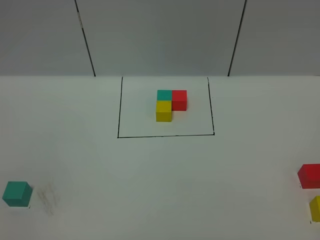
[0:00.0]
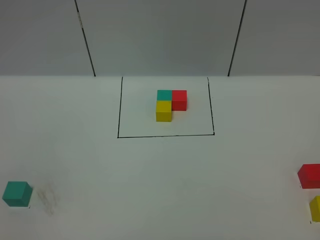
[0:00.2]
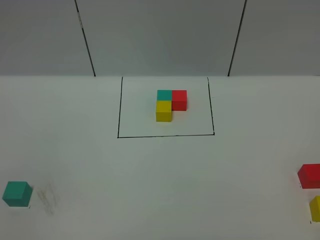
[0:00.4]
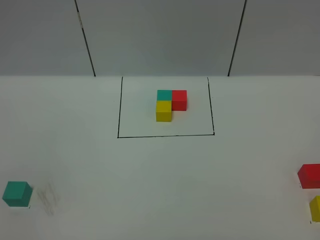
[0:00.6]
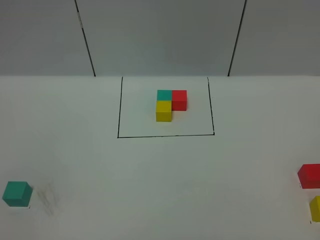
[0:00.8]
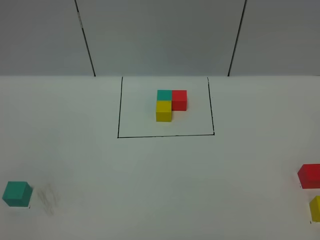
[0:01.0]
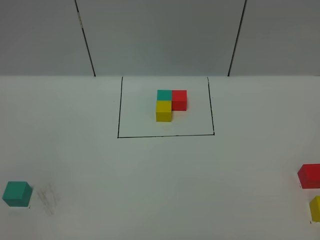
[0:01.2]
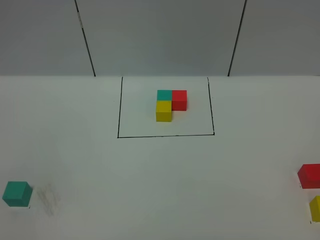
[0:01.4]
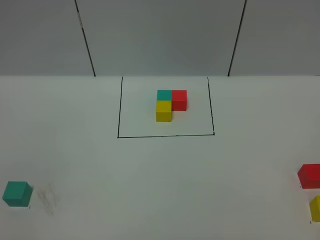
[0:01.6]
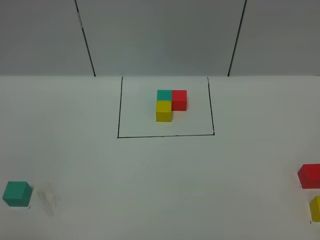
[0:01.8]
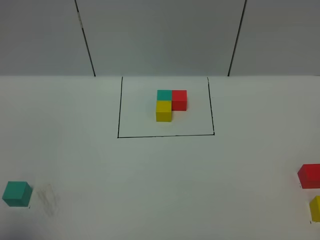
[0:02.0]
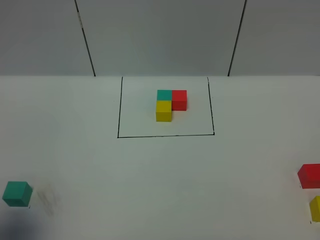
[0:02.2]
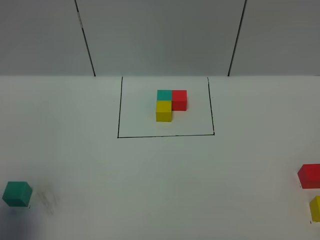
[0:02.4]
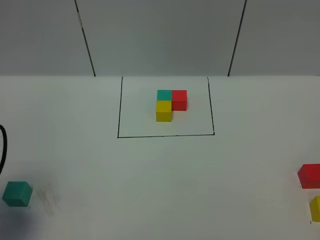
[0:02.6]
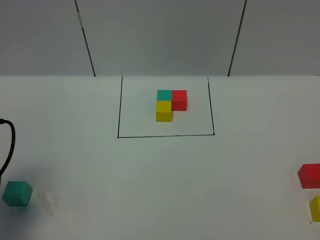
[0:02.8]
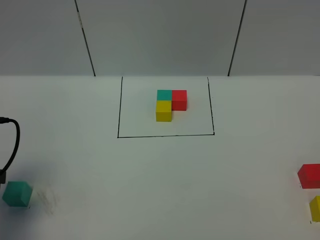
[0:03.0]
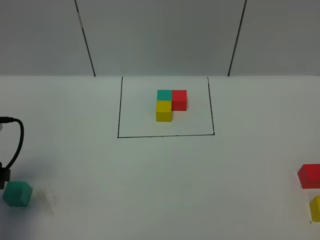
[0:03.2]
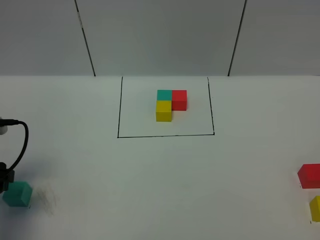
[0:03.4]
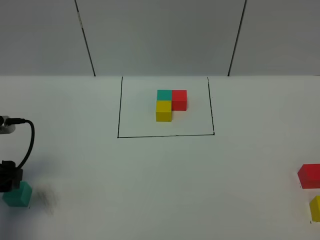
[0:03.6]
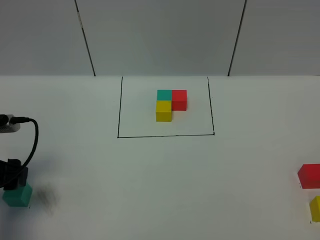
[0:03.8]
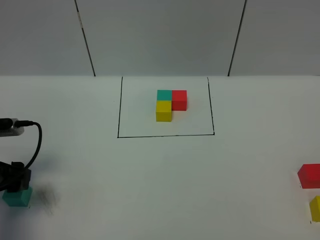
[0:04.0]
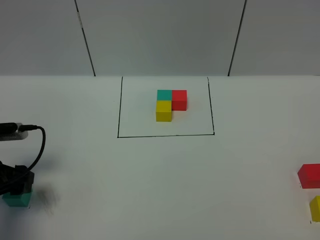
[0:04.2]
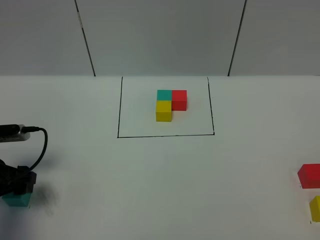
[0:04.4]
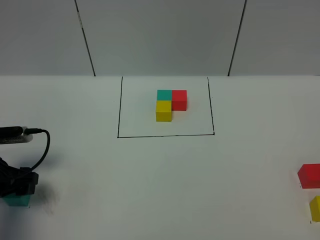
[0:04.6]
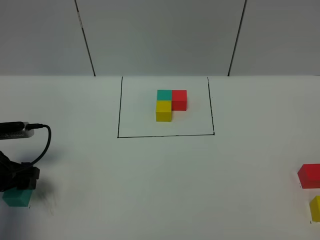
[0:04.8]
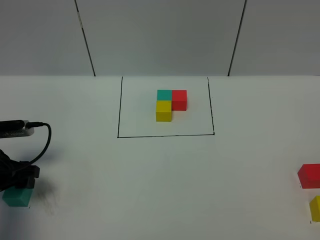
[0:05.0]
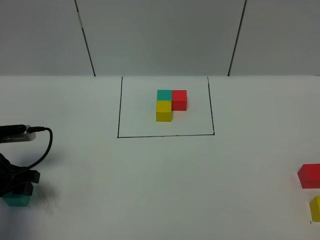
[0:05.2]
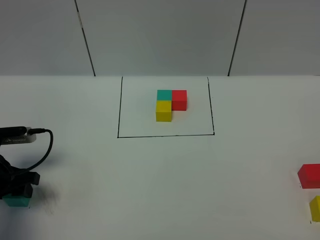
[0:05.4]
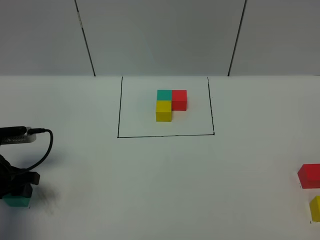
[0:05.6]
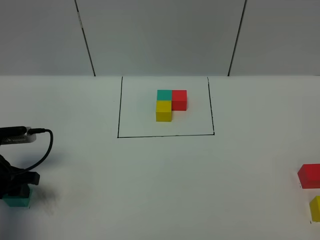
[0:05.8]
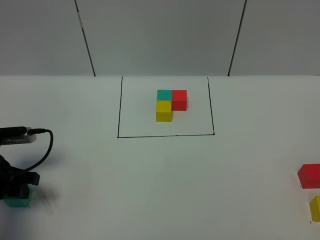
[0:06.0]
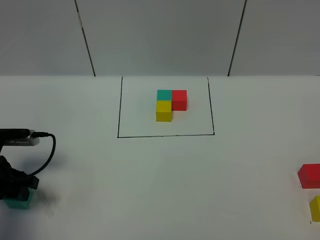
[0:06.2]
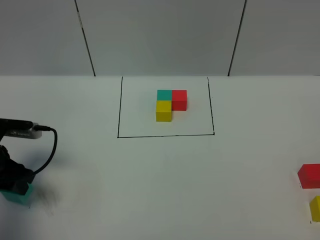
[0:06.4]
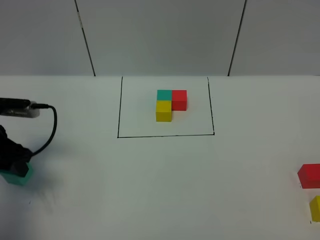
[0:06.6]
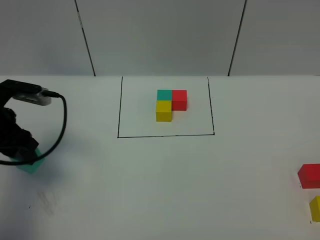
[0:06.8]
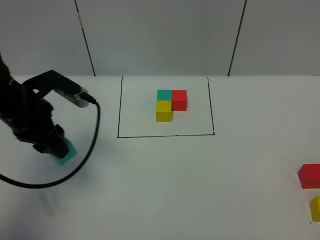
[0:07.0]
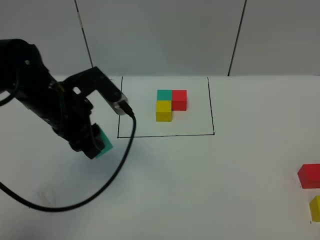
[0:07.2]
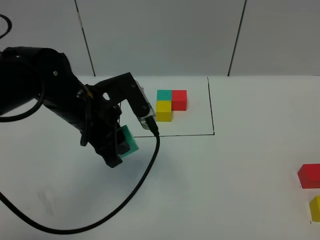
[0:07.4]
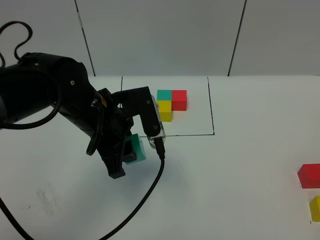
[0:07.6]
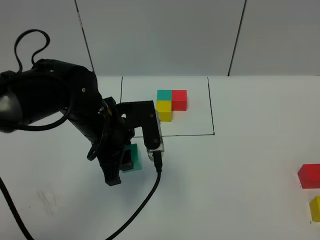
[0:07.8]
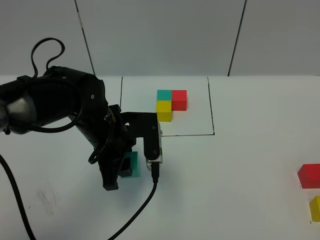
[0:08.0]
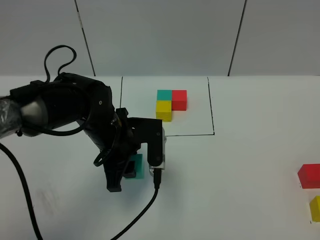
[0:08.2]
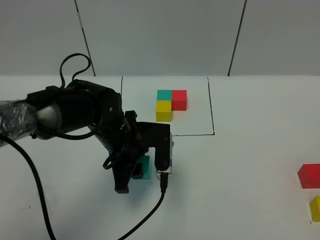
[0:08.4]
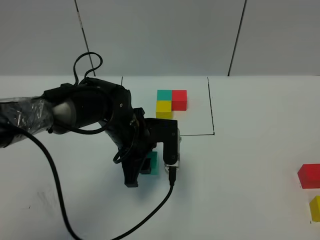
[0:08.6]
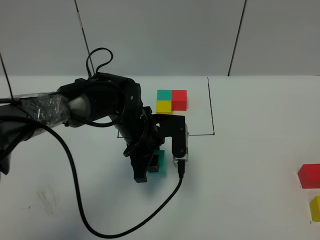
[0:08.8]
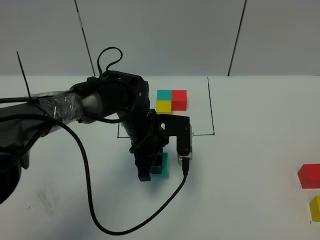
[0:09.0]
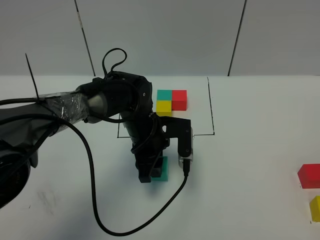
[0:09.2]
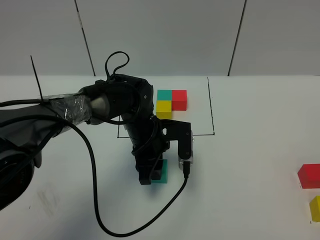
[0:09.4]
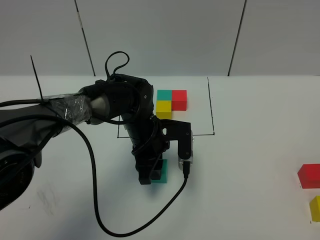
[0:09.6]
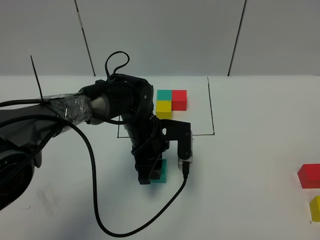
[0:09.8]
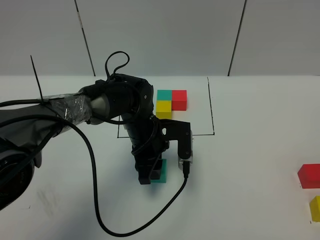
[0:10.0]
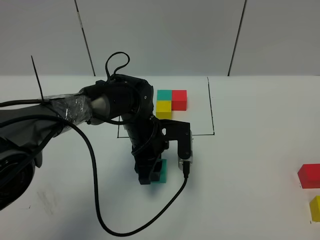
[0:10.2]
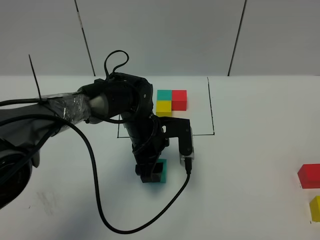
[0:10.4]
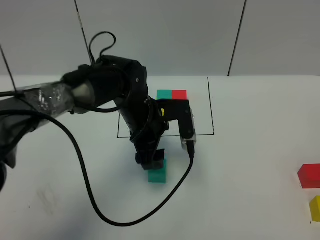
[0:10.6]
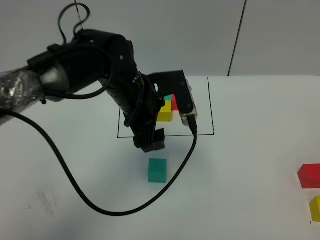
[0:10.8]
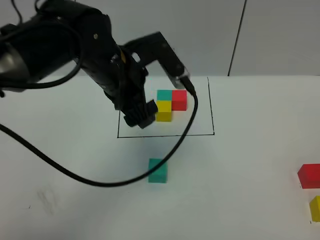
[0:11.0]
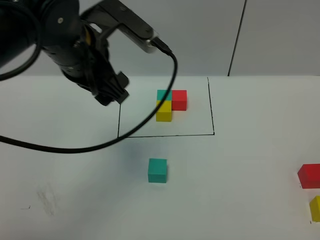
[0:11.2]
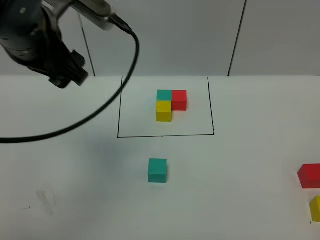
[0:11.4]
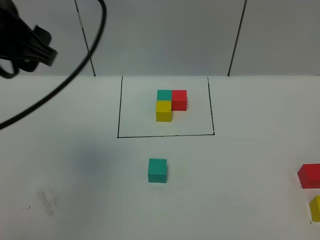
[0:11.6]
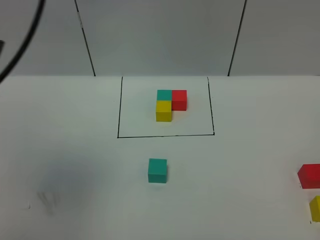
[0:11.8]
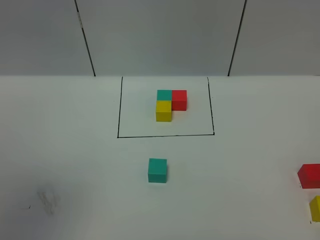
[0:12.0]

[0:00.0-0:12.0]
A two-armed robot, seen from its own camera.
Task of the whole recording: According to the building block template in front, assemble the scattered blocks together.
Step, 0:02.6 to 0:10.8: Put the green cube in the center of the table.
0:01.6 to 0:03.0: The left gripper heads forward, covering about 20 cm.
0:03.0 to 0:04.4: The left gripper moves downward, roughly 10 cm.
0:04.4 to 0:06.0: The left gripper closes its fingers.
0:06.0 to 0:07.6: The left gripper heads to the right and upward, covering approximately 25 cm.
0:07.6 to 0:09.0: The left gripper travels downward, to the right and forward by approximately 15 cm.
0:09.0 to 0:10.4: The left gripper opens up.
0:10.4 to 0:12.0: The left gripper shifts some 50 cm upward, backward and to the left.

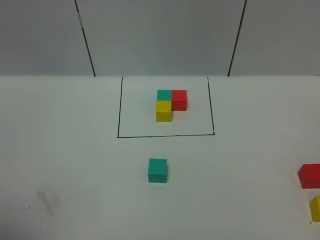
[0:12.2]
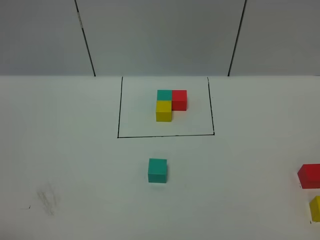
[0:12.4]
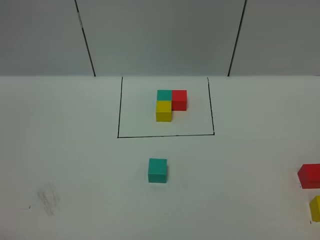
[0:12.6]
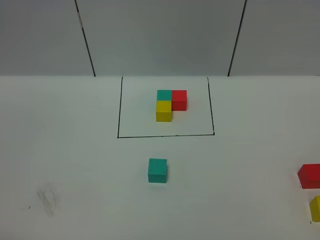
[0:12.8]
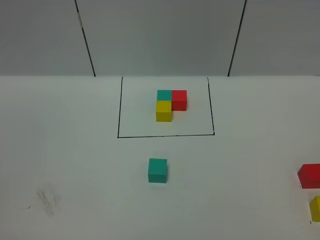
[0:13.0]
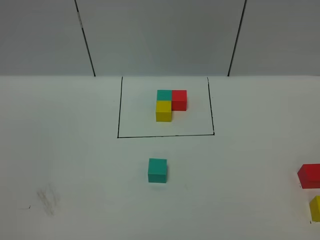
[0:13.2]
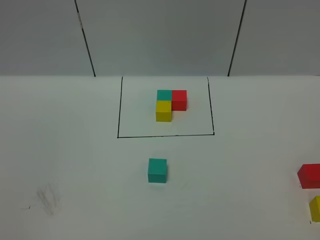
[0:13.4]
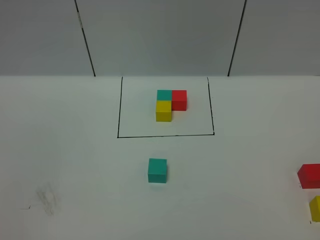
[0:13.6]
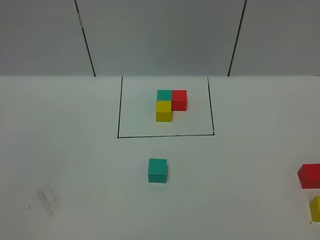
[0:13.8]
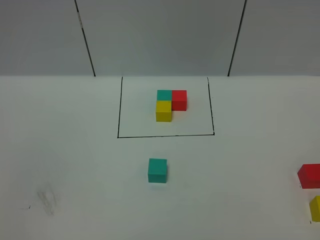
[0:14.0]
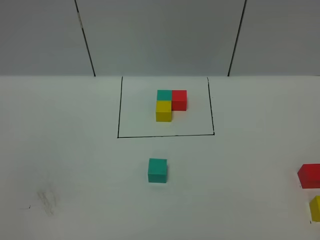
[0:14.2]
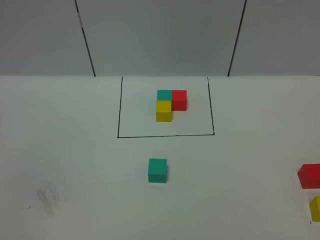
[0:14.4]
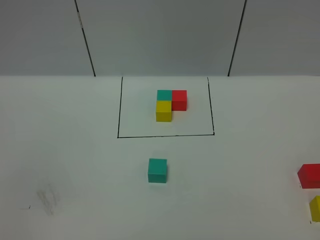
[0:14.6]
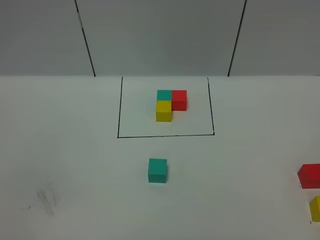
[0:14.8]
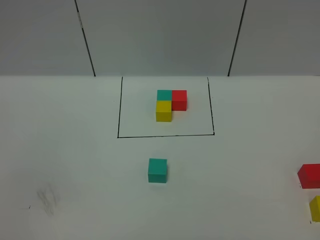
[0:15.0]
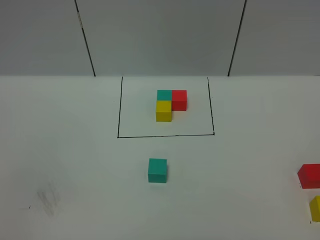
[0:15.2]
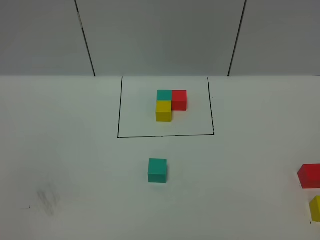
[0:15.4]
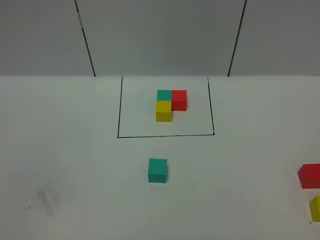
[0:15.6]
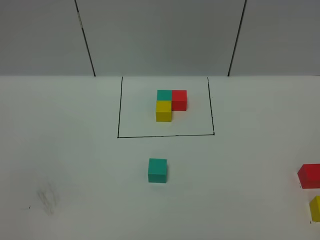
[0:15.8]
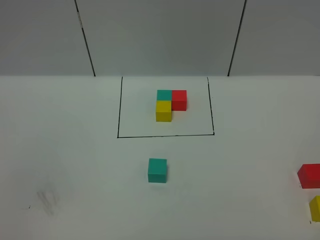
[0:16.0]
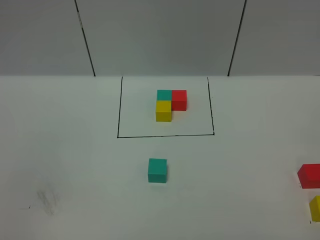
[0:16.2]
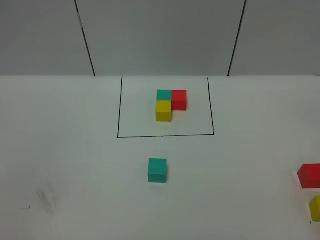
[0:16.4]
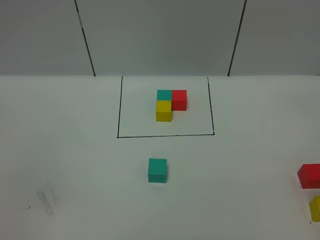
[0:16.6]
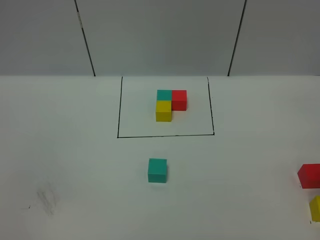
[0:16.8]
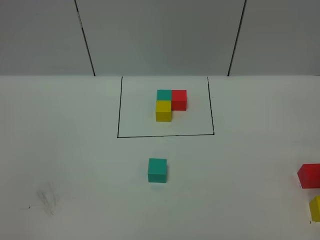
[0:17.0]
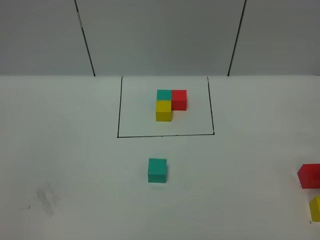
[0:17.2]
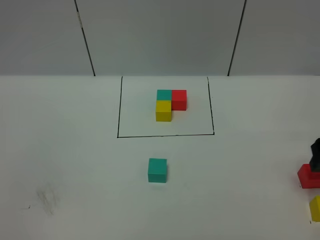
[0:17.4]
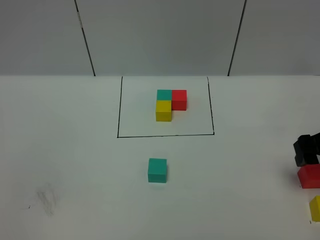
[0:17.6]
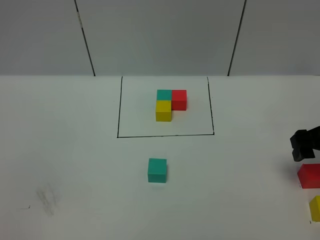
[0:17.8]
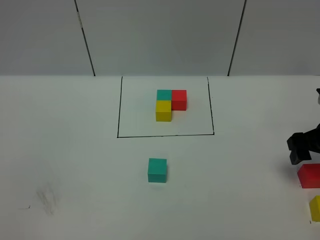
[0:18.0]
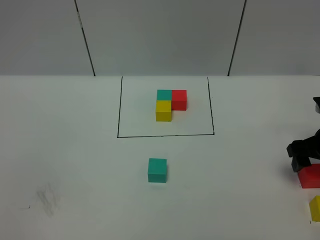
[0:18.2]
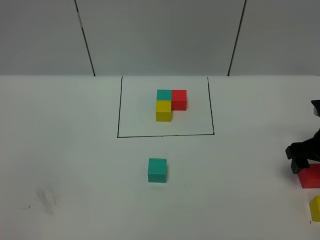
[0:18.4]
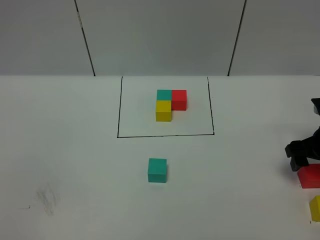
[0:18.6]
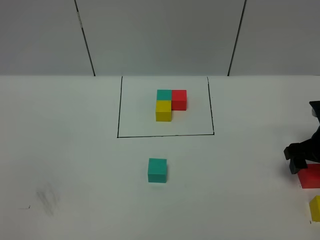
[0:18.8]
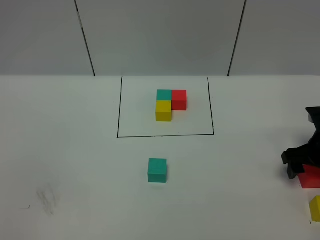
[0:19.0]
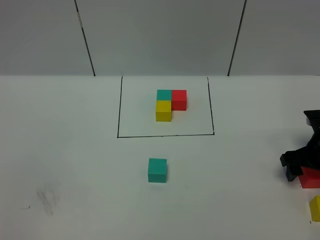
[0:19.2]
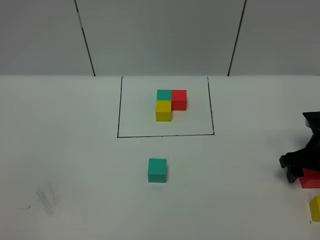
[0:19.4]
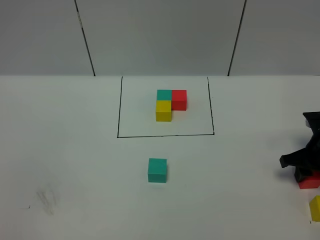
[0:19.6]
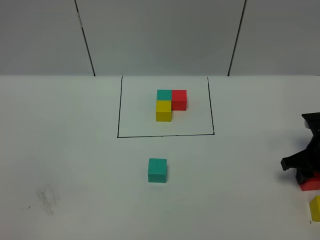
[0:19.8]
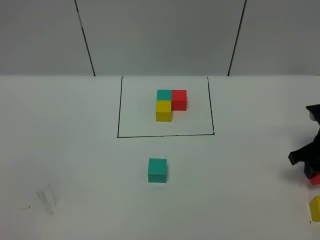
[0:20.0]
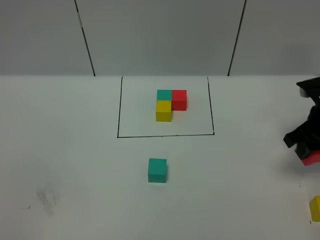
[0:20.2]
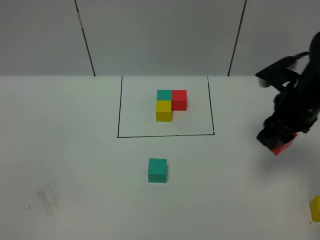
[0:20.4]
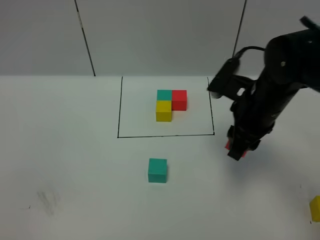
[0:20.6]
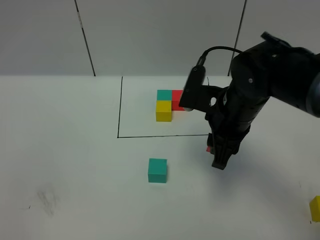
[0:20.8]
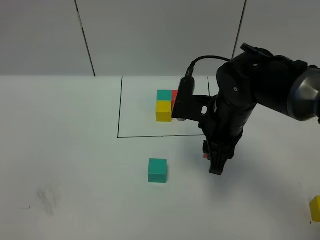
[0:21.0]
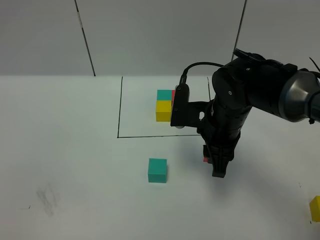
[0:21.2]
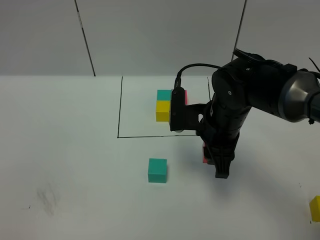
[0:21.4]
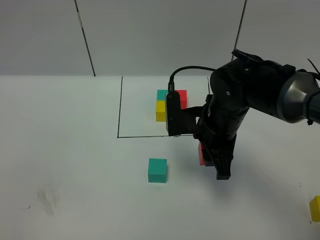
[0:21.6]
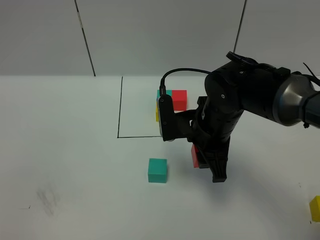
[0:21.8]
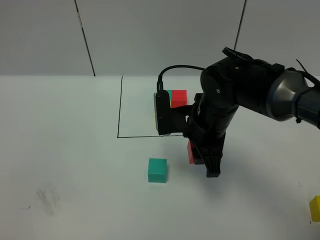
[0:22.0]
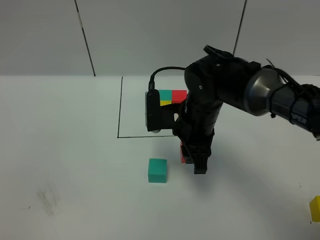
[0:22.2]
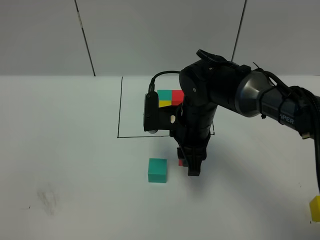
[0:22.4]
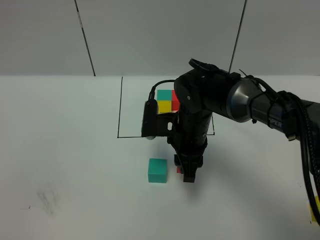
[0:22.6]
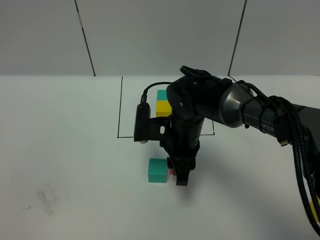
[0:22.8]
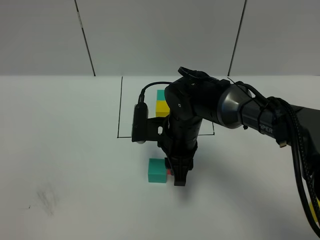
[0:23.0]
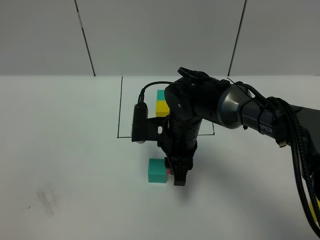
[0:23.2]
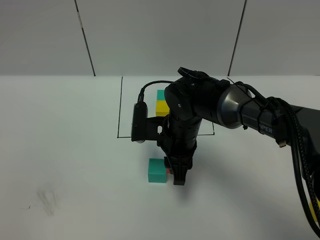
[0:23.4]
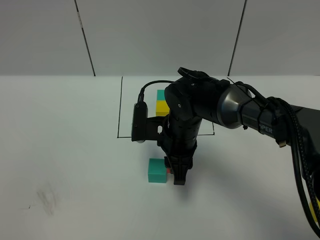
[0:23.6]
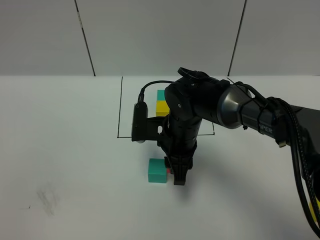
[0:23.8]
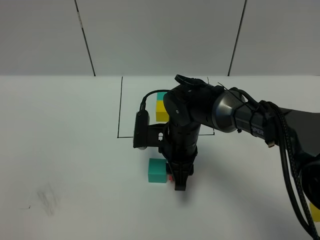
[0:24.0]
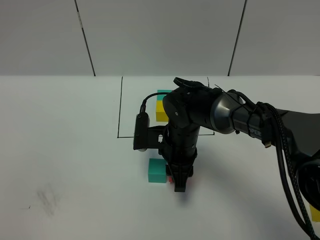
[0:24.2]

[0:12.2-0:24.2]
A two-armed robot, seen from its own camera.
Task of the whole recording: According to the building block template in front, assemble the scattered blocks together.
0:16.6 to 0:18.2: The right gripper shifts about 20 cm downward and forward.
0:18.2 to 0:19.8: The right gripper closes.
0:19.8 to 0:21.2: The right gripper goes roughly 25 cm to the left and upward.
0:21.2 to 0:22.6: The right gripper travels to the left by about 5 cm.
0:22.6 to 0:24.2: The grippers stay close to where they were, moving slightly.
